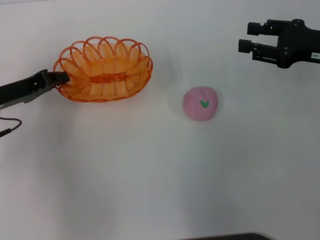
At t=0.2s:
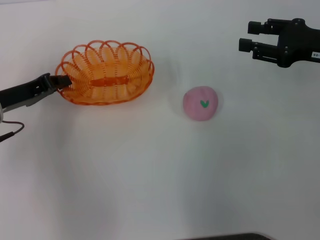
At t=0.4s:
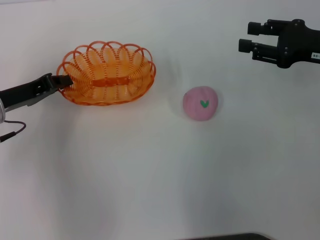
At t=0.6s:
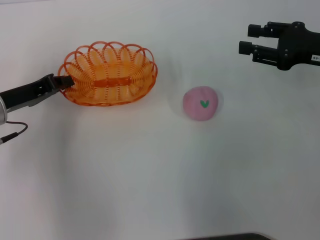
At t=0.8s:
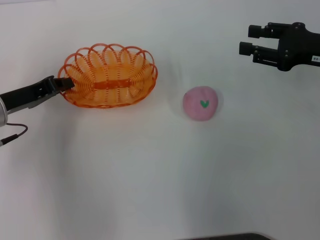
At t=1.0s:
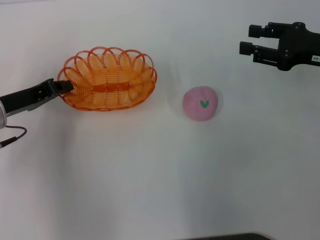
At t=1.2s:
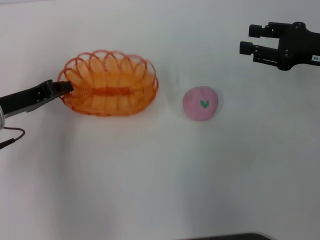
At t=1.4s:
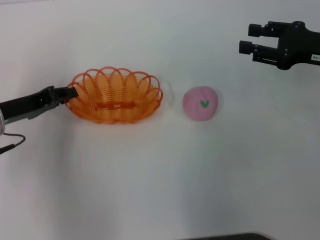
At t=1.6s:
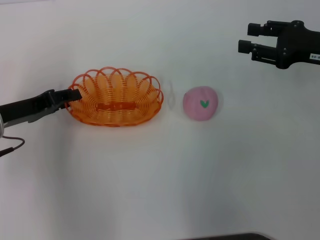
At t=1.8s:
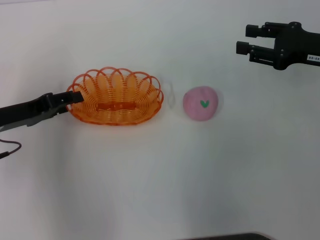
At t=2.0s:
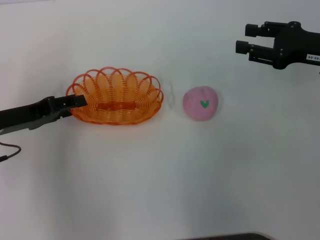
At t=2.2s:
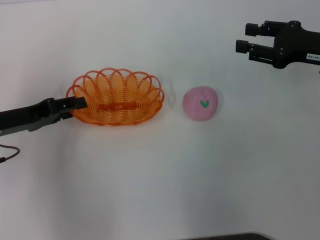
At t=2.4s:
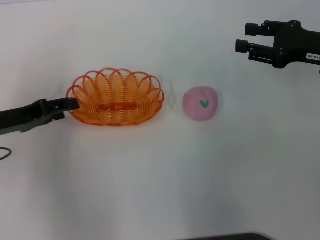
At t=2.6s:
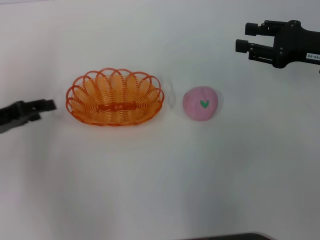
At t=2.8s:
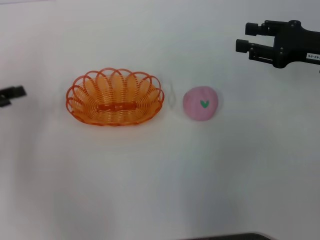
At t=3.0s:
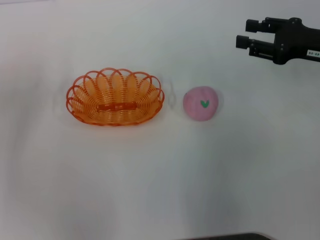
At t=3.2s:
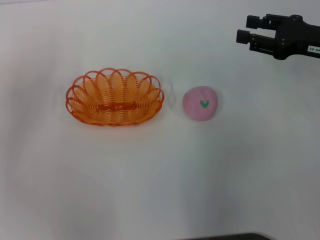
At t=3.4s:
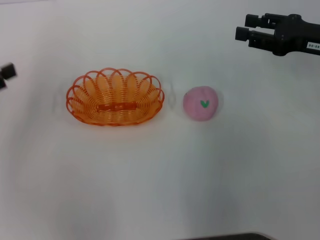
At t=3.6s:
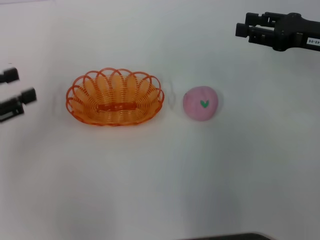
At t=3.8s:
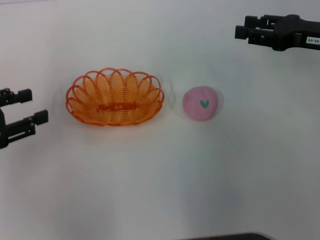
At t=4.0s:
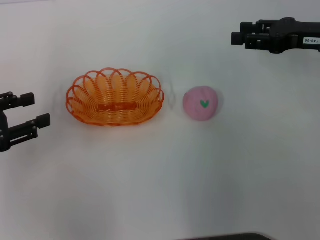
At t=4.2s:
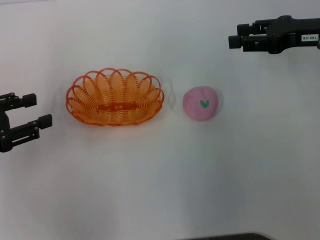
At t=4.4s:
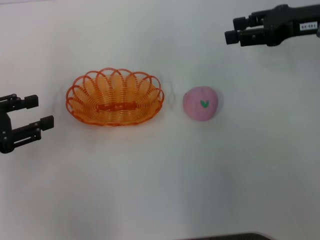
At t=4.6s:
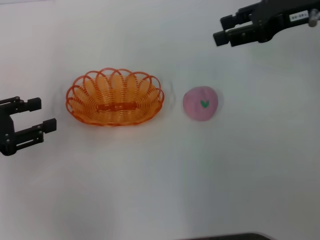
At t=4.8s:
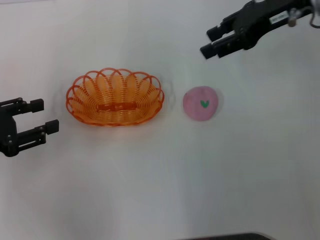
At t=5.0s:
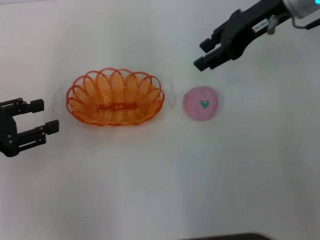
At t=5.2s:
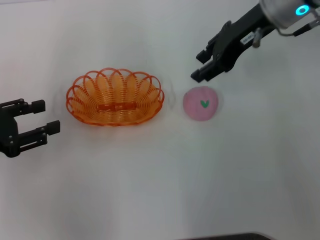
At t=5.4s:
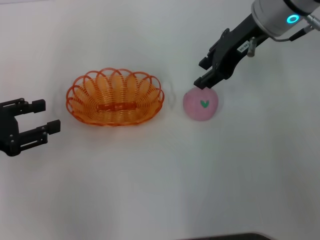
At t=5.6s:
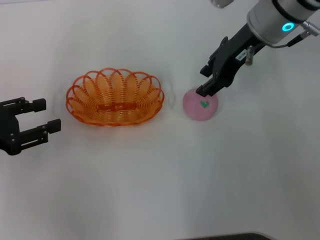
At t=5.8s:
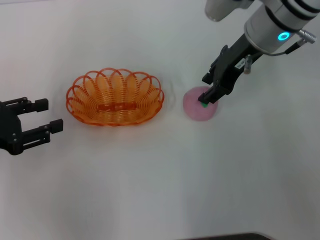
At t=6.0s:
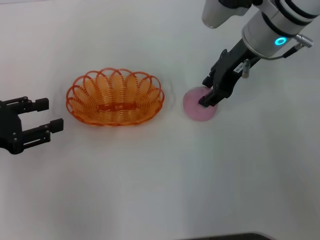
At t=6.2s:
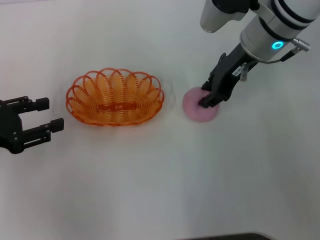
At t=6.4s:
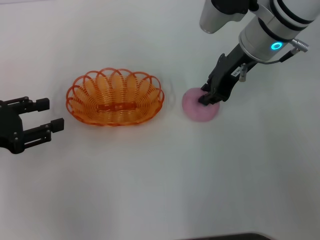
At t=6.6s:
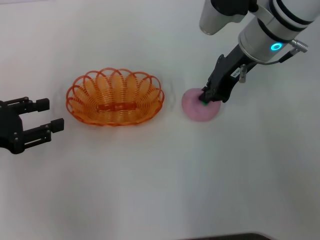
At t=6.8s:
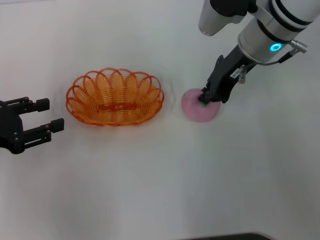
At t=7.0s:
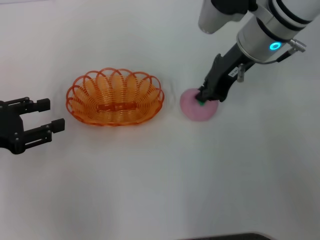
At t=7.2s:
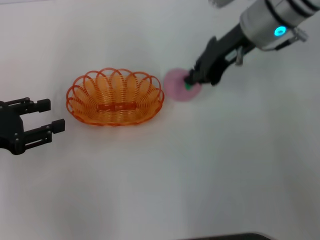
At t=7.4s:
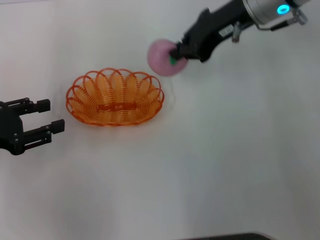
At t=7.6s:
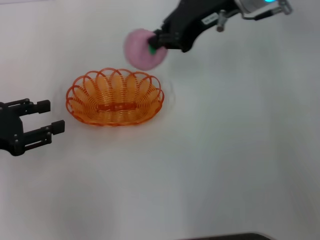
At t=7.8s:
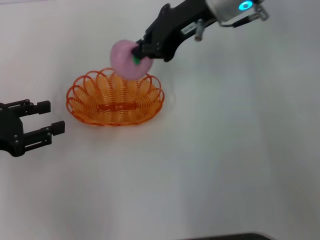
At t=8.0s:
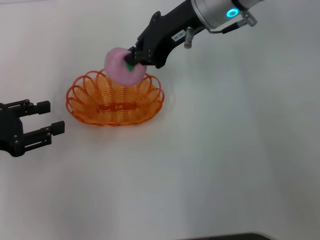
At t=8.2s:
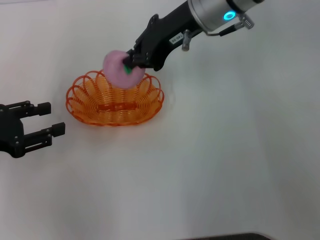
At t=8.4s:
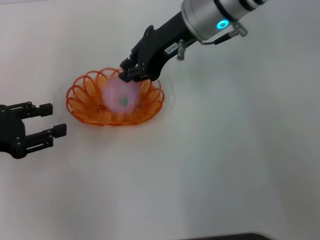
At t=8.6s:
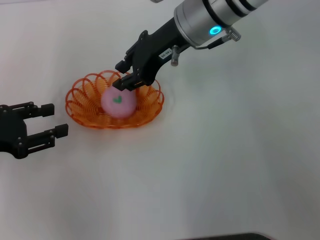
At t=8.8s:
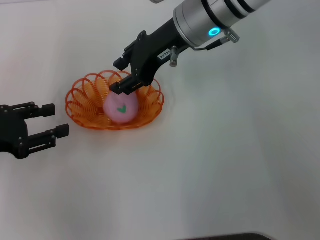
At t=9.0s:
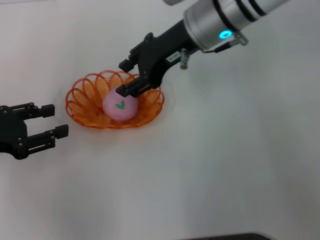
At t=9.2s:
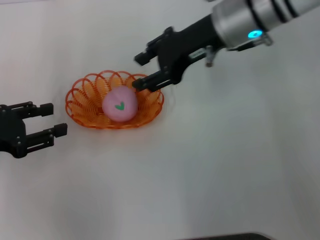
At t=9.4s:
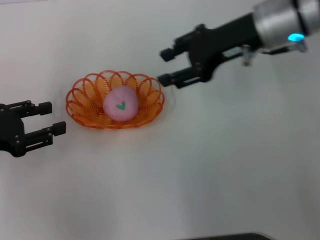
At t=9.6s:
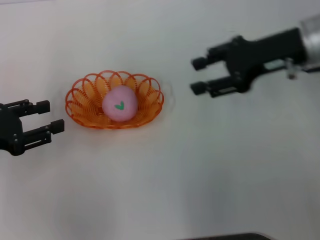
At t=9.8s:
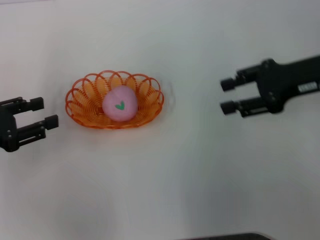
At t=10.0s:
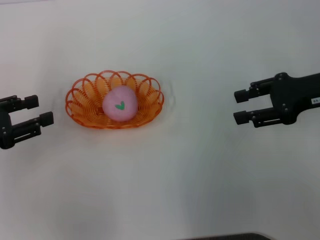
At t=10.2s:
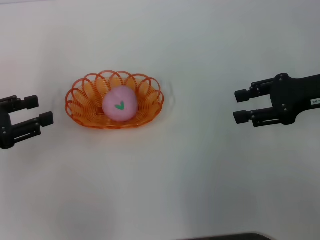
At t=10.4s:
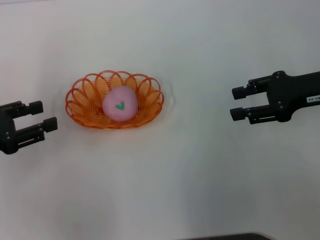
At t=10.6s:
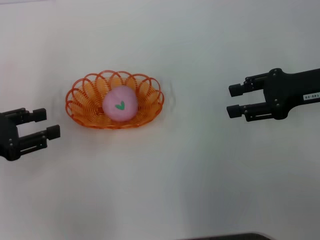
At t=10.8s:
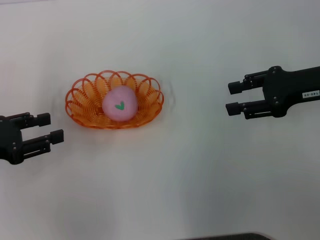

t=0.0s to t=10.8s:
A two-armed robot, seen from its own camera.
Step, t=0.0s to t=2.6s: Place the basket in the center of view with the left gripper.
Step, t=2.8s to t=7.2s: Pick up the peach with the right gripper.
Step, t=7.6s to t=9.4s: Place the peach into the basket with the right gripper.
t=0.0s to t=1.6s: The left gripper opens.
t=1.6s to t=3.0s: The left gripper moves to the left, approximately 10 cm, and opens its fingers.
t=3.0s to t=4.6s: The right gripper moves upward and to the left, about 10 cm, while the left gripper moves roughly 5 cm.
t=4.6s to t=6.2s: The right gripper shifts about 10 cm to the left and downward.
t=6.2s to t=7.8s: The right gripper goes some 5 cm upward, and closes up.
t=7.8s to t=9.2s: The right gripper opens.
t=9.2s to t=10.8s: The right gripper goes approximately 15 cm to the right and backward.

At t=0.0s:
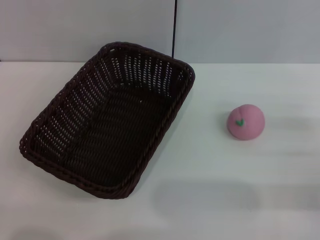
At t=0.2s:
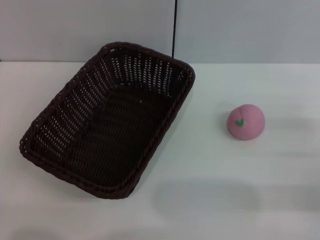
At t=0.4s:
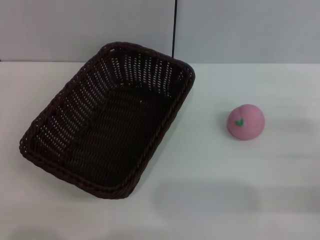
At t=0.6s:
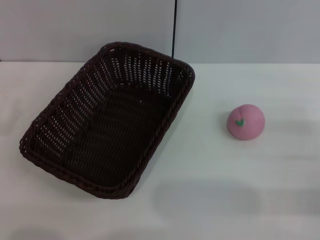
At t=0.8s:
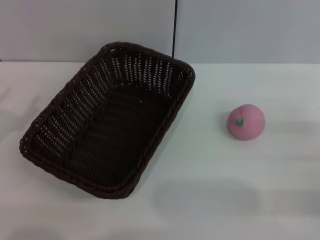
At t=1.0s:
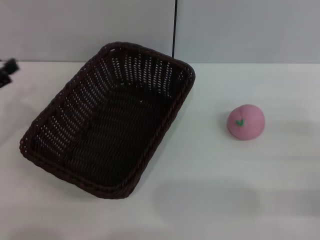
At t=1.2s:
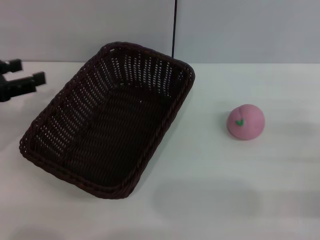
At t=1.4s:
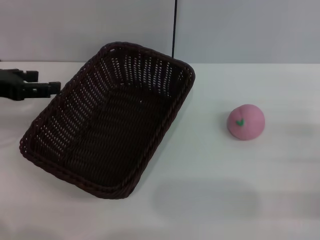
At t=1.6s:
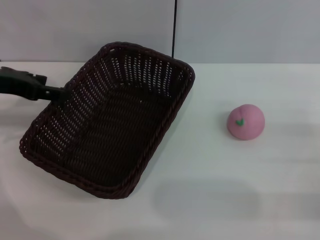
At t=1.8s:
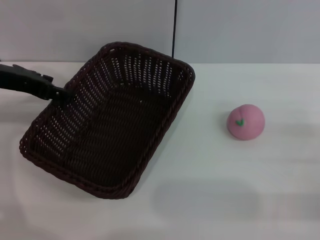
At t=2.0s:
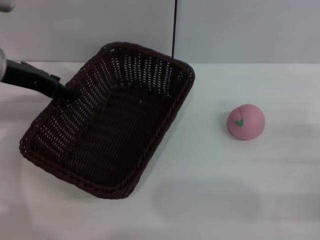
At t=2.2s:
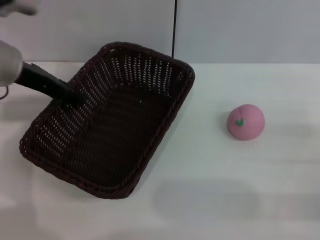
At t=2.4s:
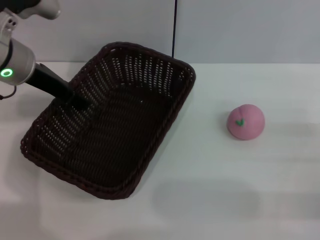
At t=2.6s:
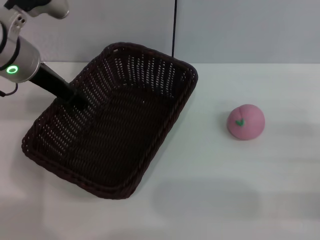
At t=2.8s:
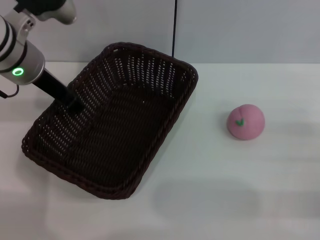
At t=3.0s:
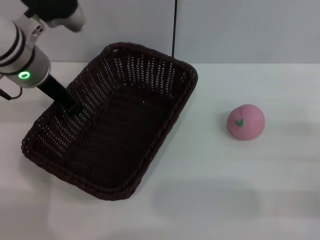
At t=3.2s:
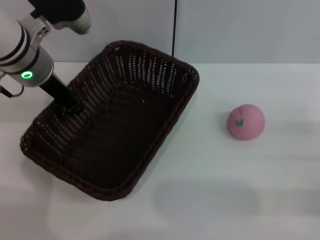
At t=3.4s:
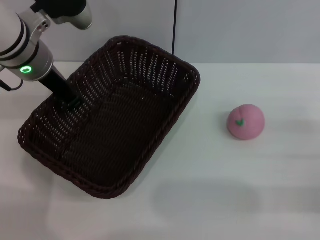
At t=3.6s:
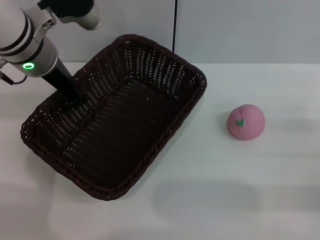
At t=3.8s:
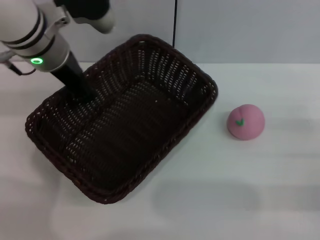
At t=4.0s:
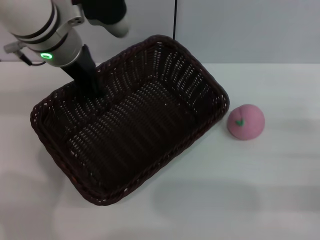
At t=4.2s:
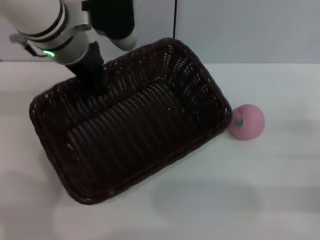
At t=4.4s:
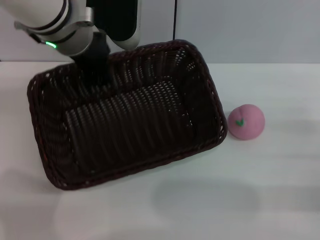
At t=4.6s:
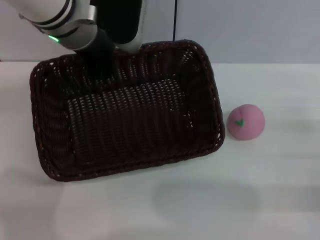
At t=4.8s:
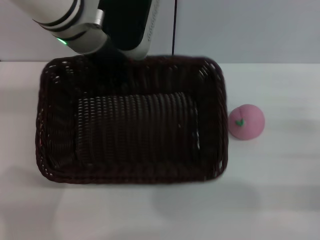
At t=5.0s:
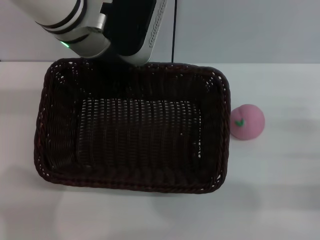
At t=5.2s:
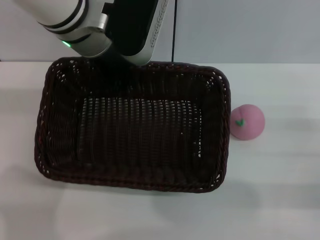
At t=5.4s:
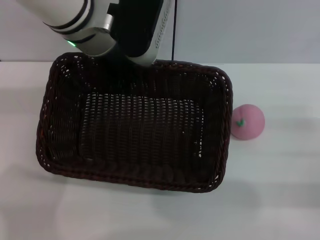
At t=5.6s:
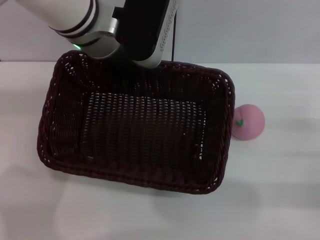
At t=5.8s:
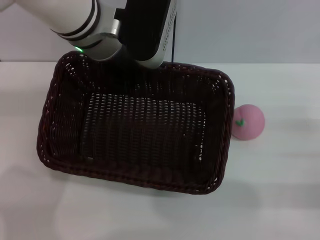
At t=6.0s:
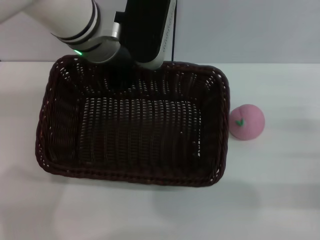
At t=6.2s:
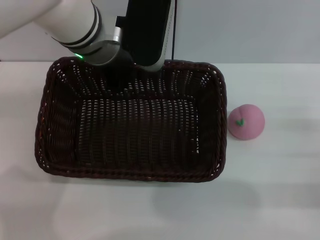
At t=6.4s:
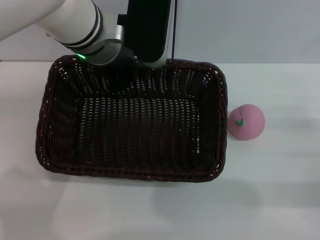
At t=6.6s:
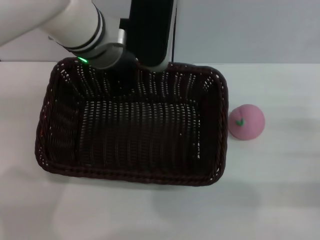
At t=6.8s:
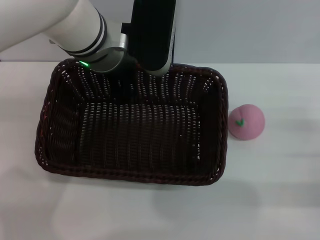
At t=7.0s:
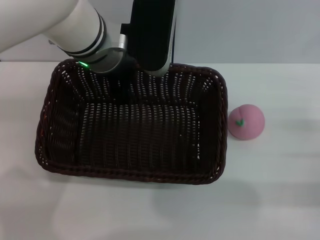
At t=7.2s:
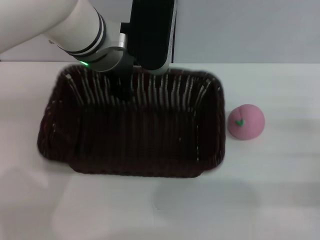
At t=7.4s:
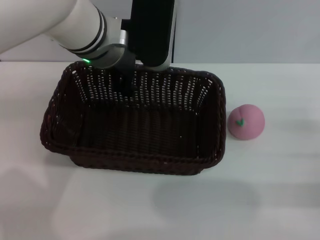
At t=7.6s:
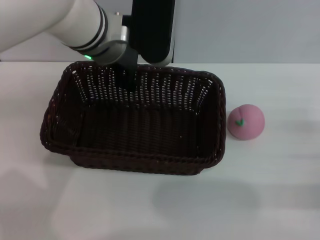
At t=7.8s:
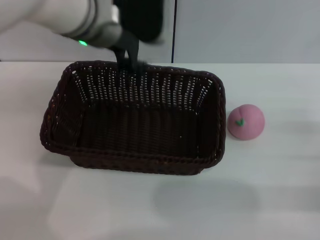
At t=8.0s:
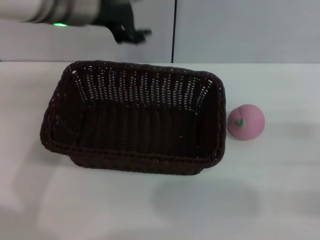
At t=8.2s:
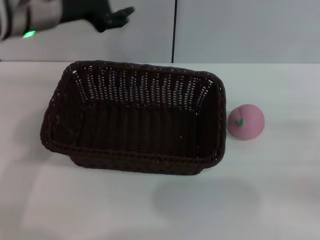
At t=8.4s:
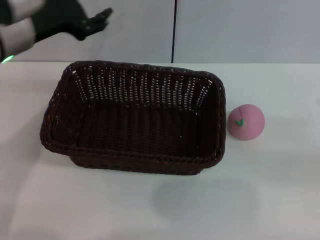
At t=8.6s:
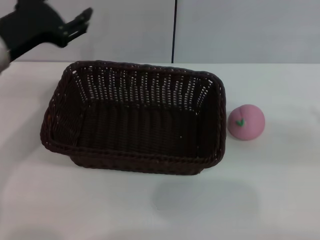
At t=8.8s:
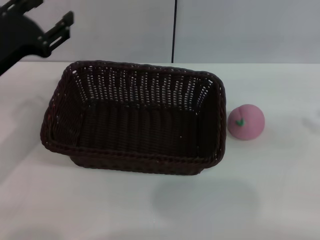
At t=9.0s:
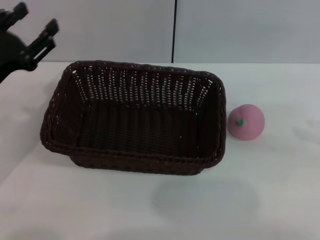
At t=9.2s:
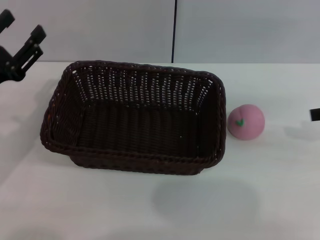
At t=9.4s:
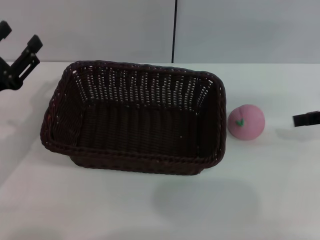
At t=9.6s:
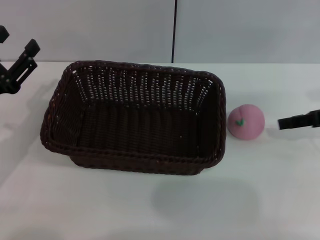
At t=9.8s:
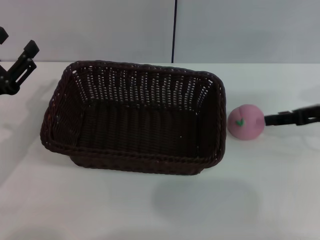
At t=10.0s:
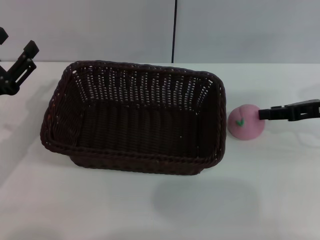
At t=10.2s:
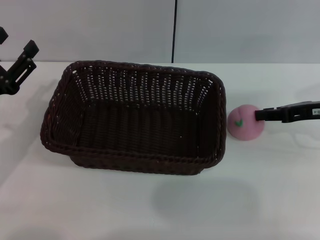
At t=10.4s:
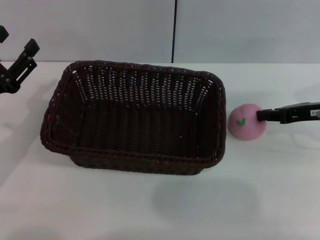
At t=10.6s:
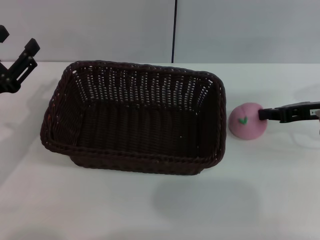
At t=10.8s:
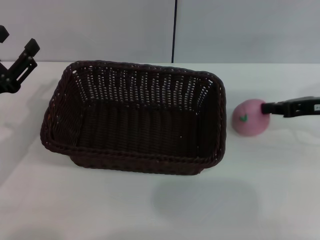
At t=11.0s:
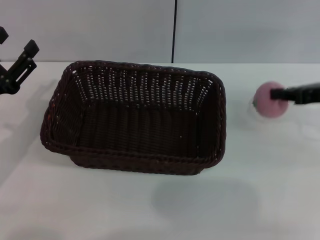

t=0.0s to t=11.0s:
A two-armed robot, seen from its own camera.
Step, t=0.0s to t=3.4s: Pick up the dark basket with the left gripper.
Step, t=7.8s to t=11.0s: Pick up the peach with the left gripper.
t=0.0s to t=1.6s: The left gripper travels upward and forward by approximately 20 cm, and opens.
t=1.6s to t=3.2s: The left gripper travels to the right by approximately 10 cm, and closes.
t=3.2s to t=4.8s: The left gripper is displaced to the right by approximately 5 cm.
t=4.8s to t=6.2s: The grippers make only small movements.
t=6.2s to t=7.8s: The left gripper opens its fingers.
t=7.8s to t=9.4s: The right gripper heads upward and forward, covering roughly 15 cm. Meanwhile the left gripper shifts some 25 cm to the left, backward and downward.
t=9.4s to t=11.0s: The right gripper closes its fingers.
